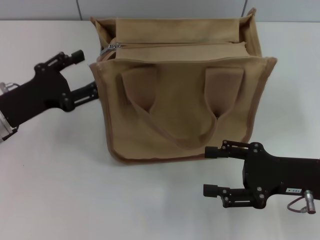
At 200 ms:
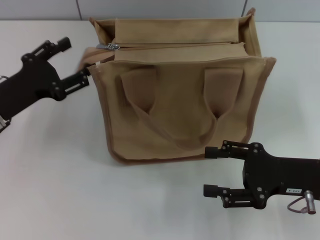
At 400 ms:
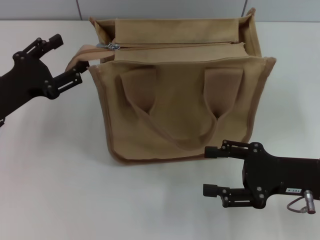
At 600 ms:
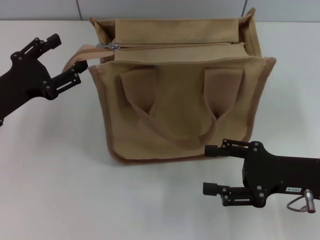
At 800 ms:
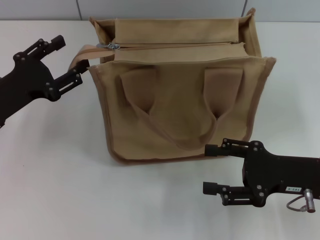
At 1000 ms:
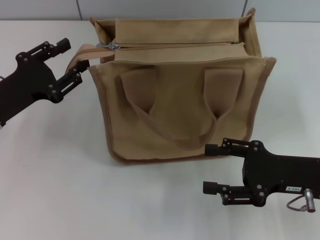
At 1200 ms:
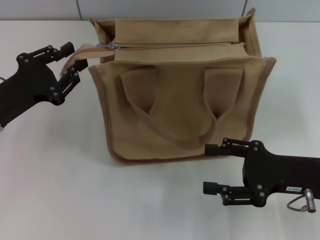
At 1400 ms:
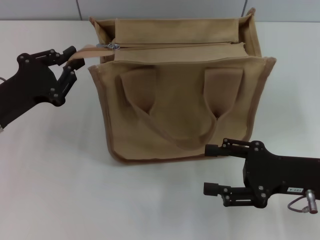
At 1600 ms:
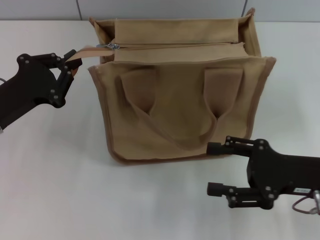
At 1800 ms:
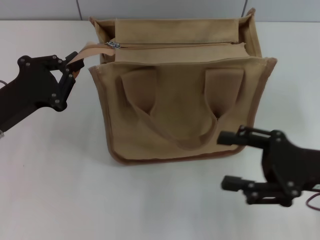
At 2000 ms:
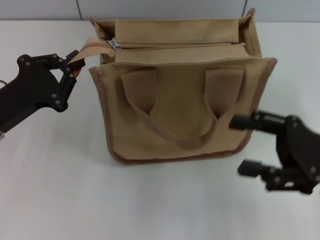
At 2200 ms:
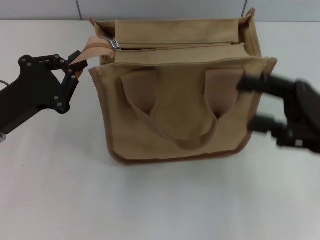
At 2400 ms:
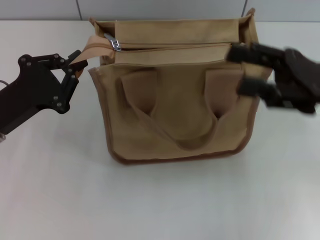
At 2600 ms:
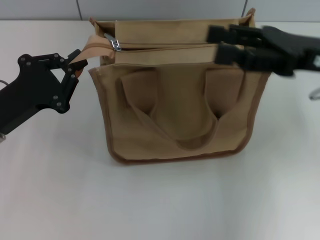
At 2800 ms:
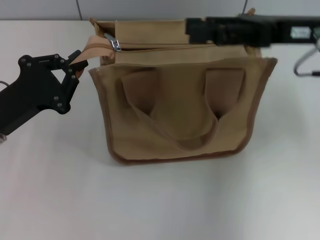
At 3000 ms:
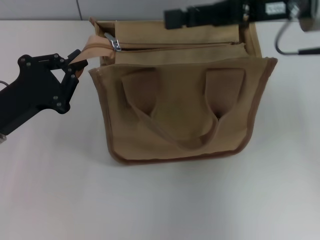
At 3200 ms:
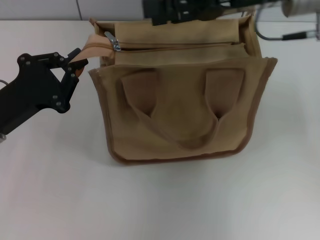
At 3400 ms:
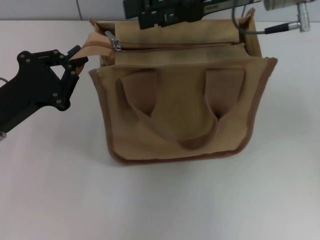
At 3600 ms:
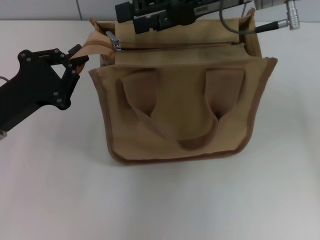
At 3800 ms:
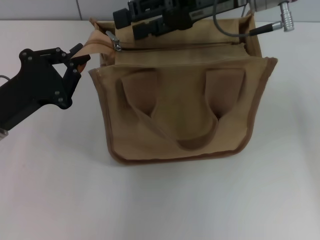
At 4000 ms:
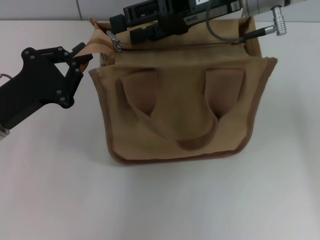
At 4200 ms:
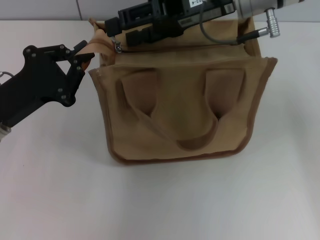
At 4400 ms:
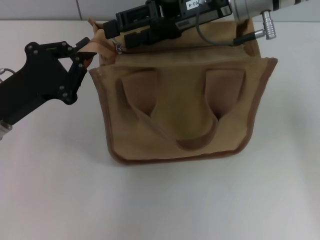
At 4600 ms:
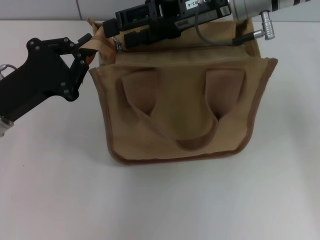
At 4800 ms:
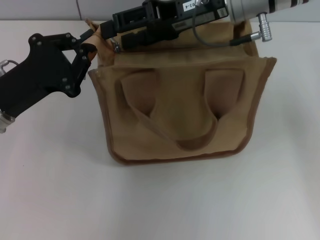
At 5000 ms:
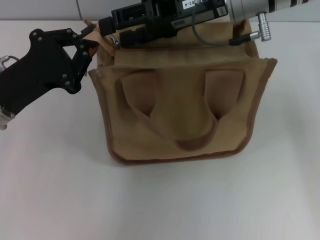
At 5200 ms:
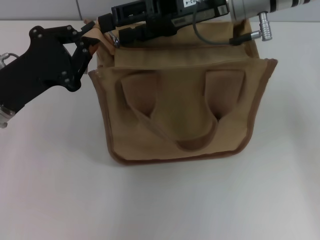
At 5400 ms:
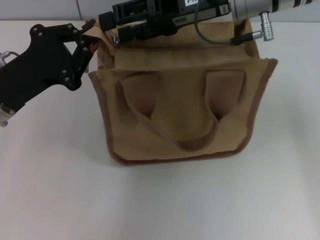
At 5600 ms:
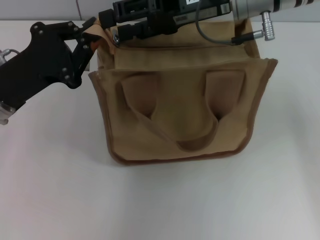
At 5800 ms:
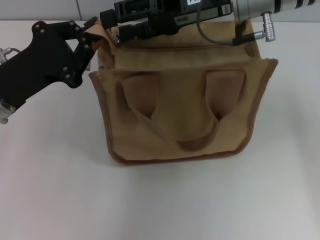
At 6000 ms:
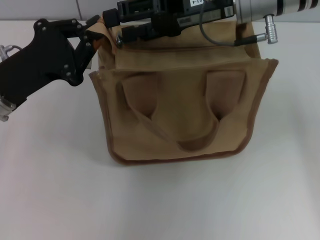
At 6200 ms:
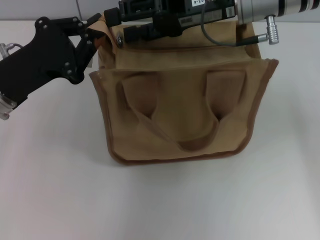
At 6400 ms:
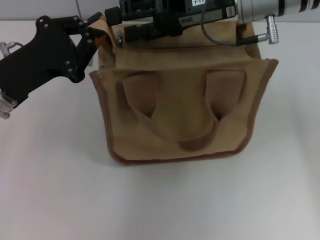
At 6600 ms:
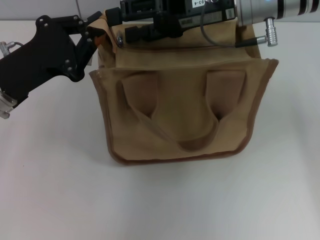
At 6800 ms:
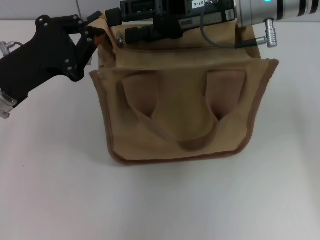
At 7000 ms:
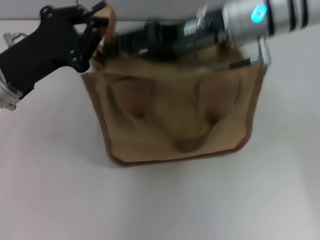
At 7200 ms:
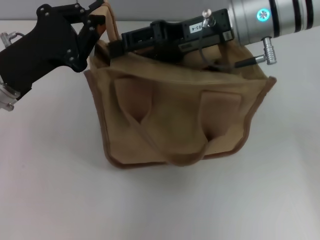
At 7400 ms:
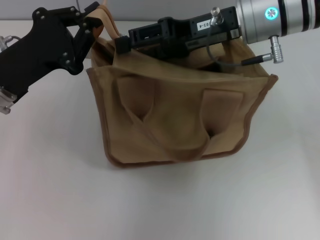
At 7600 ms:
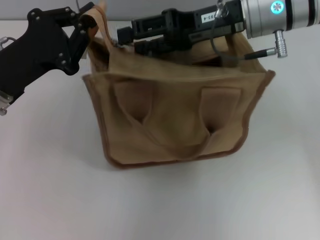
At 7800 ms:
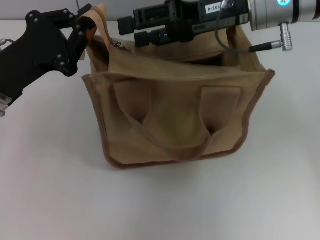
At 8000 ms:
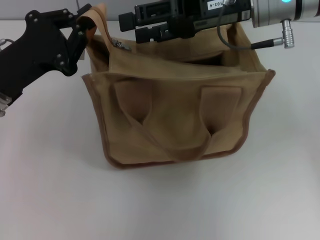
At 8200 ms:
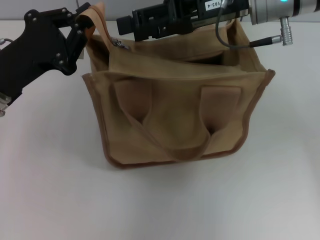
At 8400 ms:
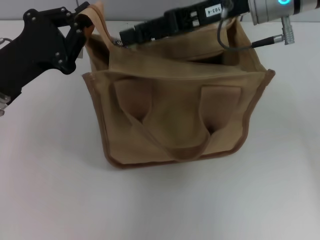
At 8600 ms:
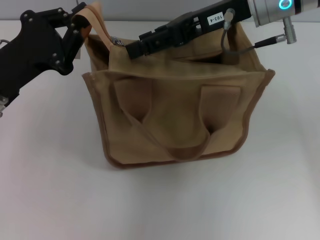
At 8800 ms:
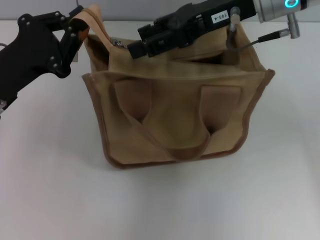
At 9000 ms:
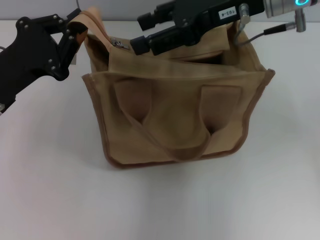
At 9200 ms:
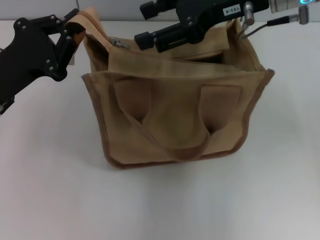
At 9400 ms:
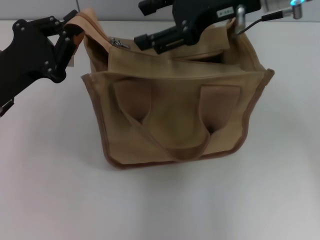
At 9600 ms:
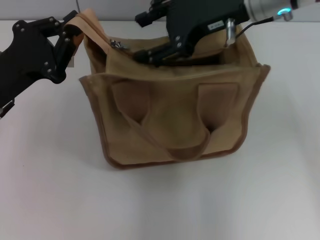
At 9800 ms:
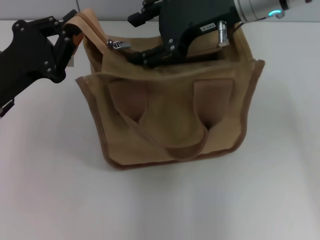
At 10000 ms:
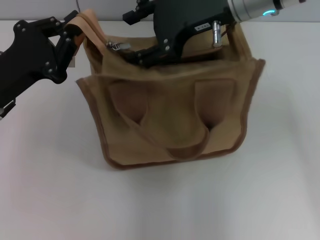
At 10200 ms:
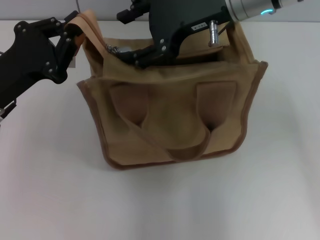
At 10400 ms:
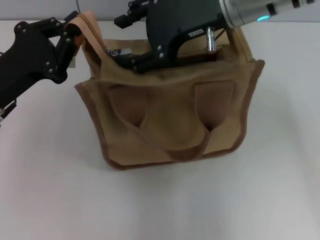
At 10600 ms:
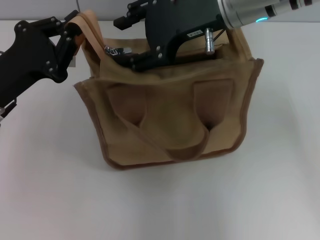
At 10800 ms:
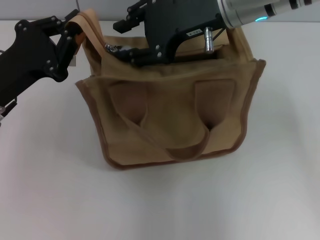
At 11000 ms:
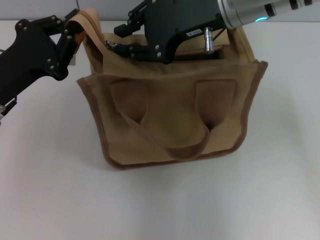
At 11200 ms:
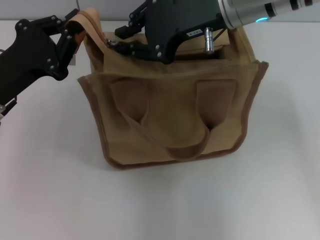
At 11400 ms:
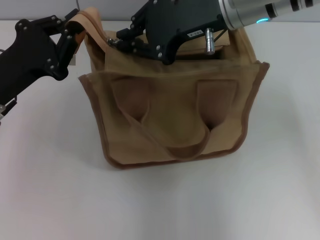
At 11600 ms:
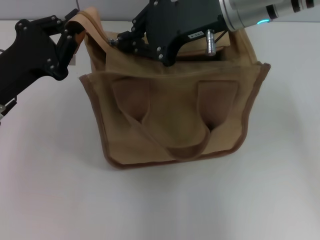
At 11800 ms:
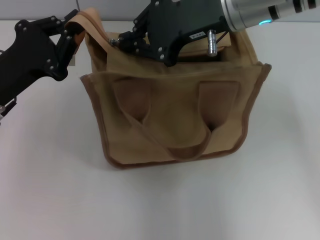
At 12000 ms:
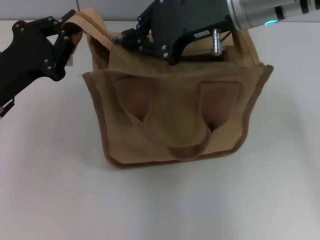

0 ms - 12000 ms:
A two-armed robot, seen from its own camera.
0 ms - 1600 ms: The left gripper closes up.
1600 ms - 3000 ms: The right gripper goes roughly 20 cm upward and forward.
3000 ms - 4400 ms: The right gripper moves to the left, about 10 cm.
4400 ms - 6000 ms: The grippers move only a little.
10400 ms - 12000 ms: The right gripper closes up.

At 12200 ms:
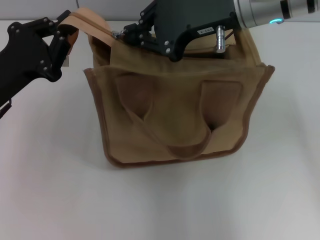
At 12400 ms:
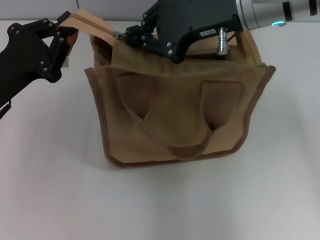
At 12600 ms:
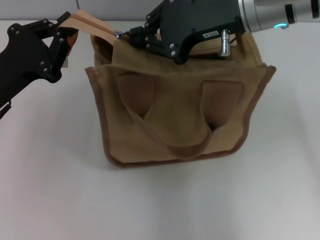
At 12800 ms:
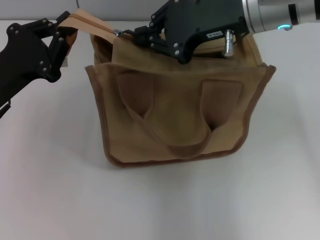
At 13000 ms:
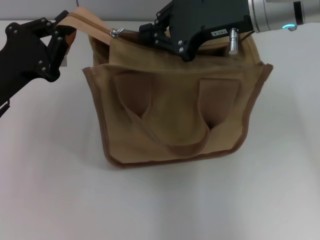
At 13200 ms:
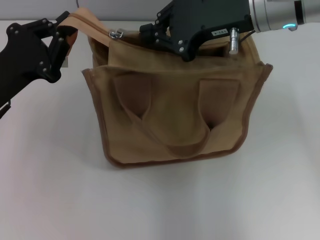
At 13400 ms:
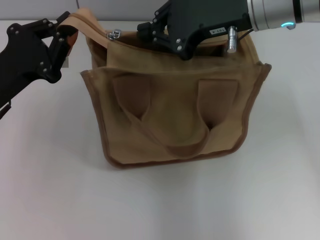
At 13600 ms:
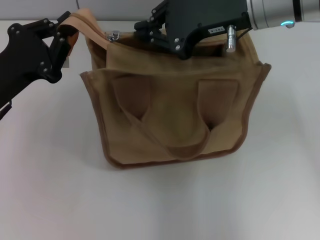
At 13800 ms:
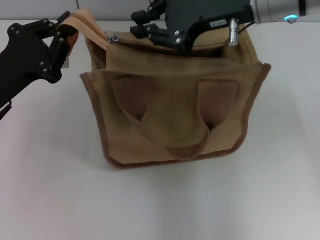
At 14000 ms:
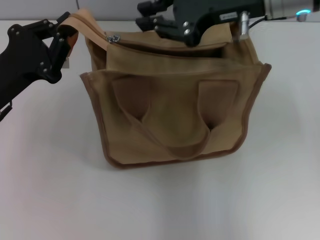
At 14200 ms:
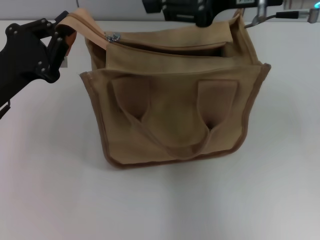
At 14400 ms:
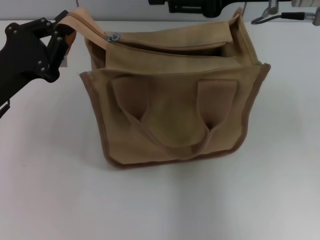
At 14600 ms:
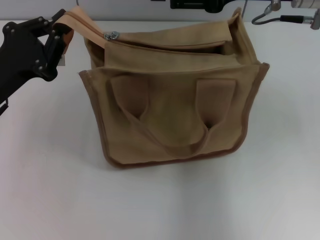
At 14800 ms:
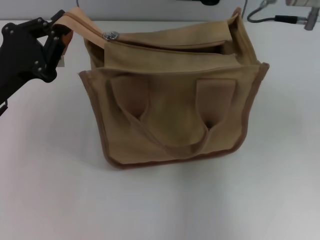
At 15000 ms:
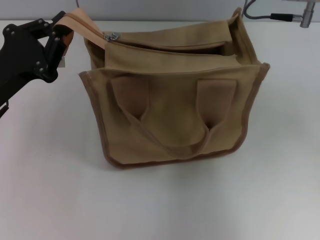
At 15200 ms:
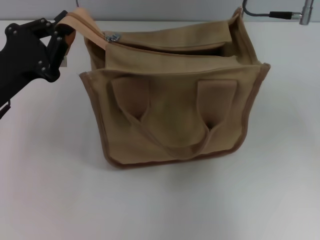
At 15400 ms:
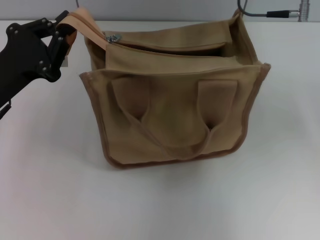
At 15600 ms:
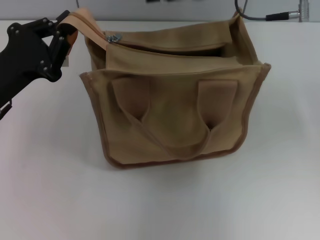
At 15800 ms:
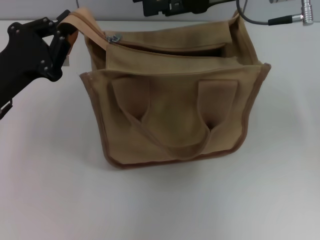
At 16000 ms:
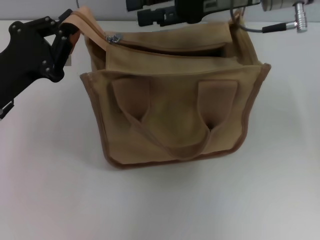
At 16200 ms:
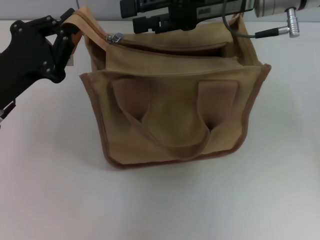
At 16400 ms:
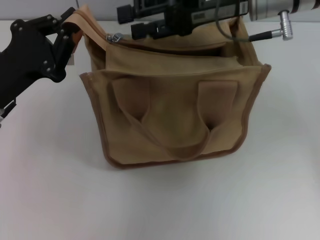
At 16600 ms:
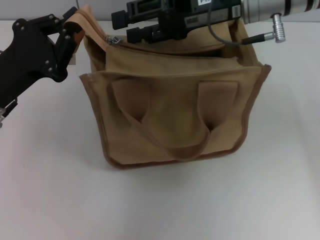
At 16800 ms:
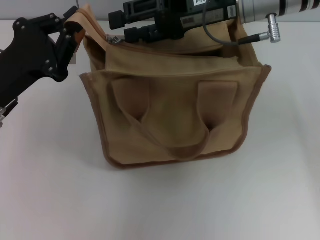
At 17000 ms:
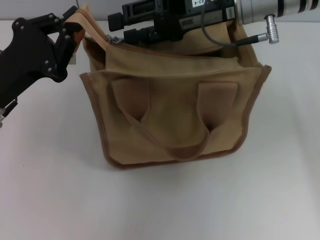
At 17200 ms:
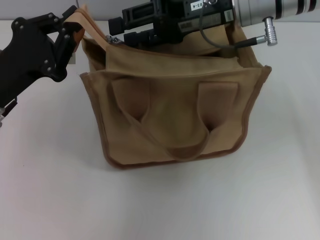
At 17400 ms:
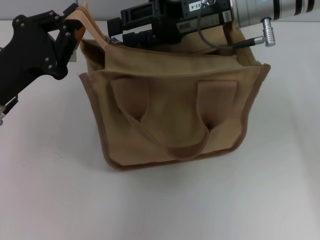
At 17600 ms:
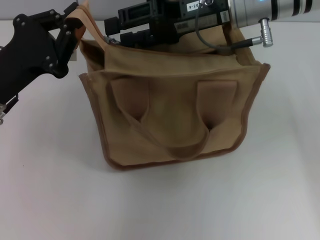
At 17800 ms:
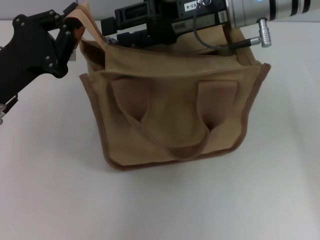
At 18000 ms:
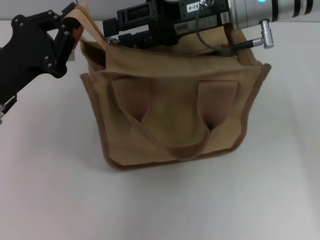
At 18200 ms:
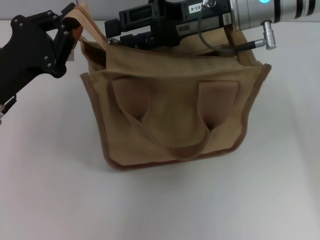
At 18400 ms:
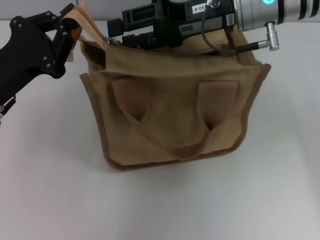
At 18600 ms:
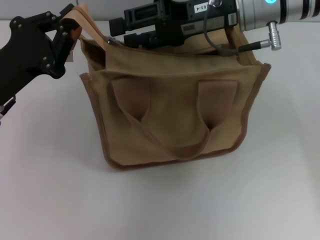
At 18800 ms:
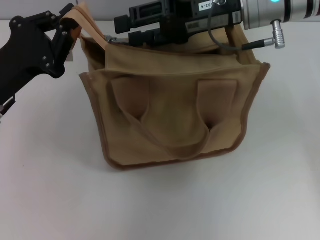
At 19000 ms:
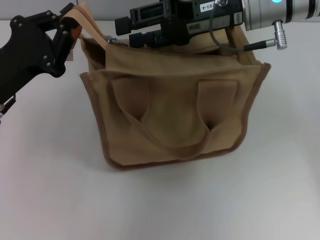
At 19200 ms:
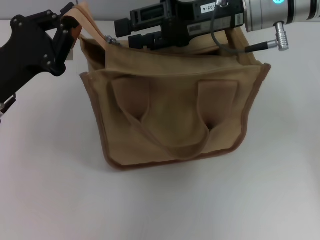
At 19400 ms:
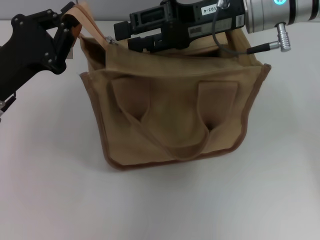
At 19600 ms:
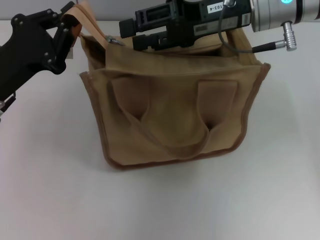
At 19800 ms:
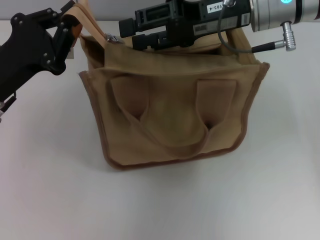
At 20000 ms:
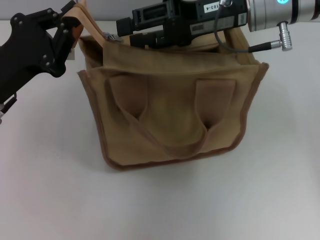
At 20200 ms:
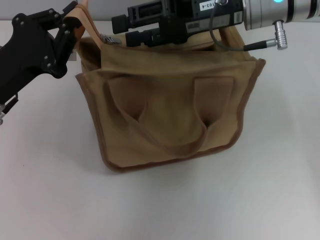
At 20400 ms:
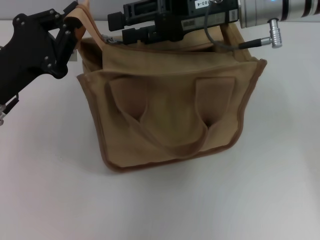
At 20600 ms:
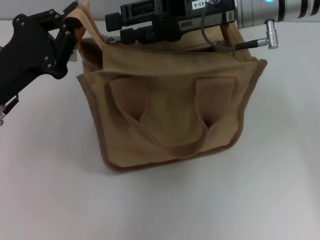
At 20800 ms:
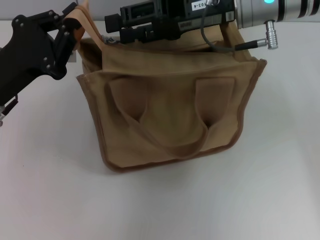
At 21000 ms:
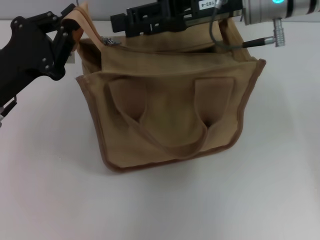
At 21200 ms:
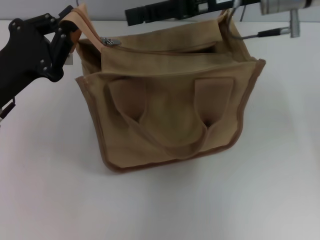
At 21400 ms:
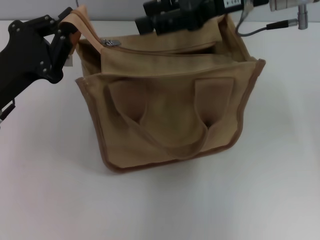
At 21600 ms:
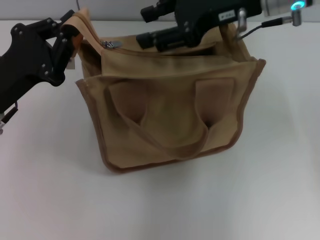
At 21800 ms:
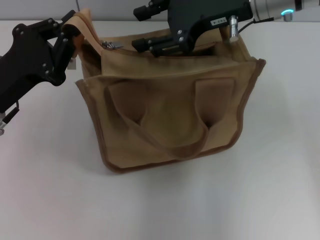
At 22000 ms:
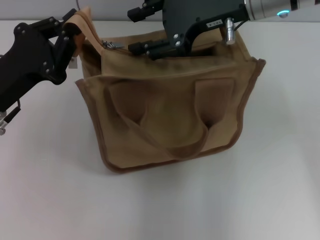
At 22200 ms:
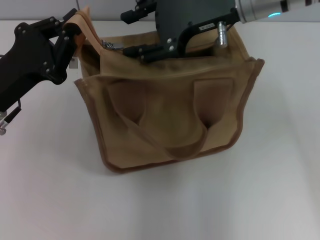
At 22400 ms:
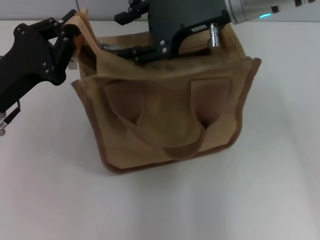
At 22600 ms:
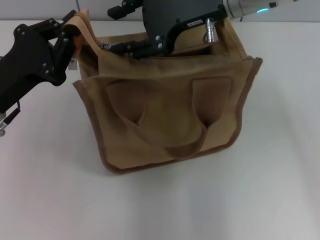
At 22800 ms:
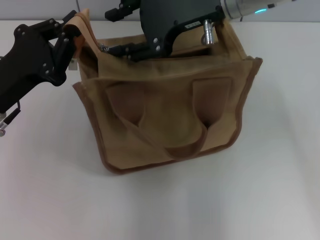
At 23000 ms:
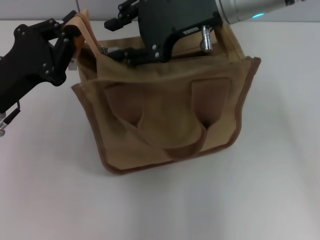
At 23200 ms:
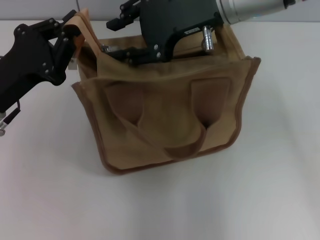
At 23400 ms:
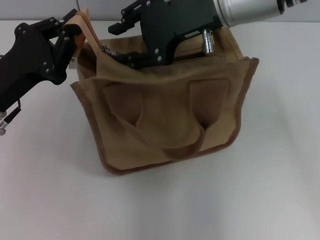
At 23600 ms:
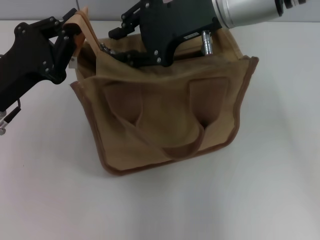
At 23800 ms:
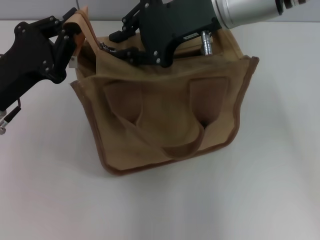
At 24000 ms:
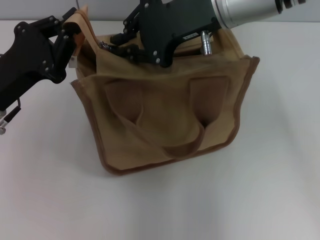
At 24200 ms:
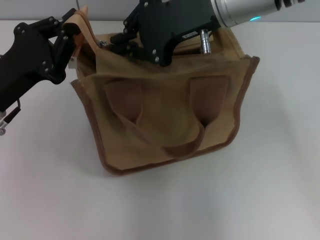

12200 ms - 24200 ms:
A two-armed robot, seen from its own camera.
12200 ms - 13800 ms: The grippers stay close to where they were, moving slightly.
13800 ms - 15200 ms: The right gripper moves about 5 cm, and opens.
16600 ms - 19800 ms: The grippers move only a little.
22600 ms - 24200 ms: The right gripper closes.
